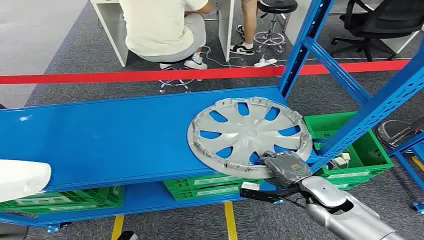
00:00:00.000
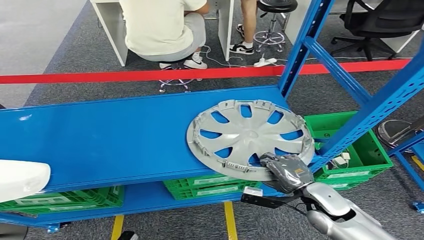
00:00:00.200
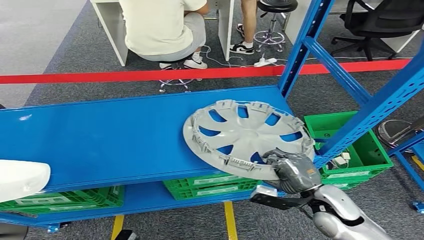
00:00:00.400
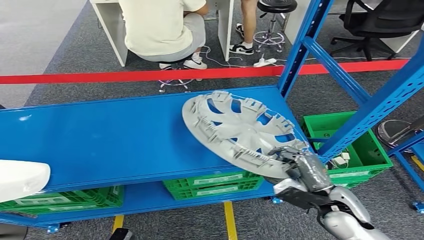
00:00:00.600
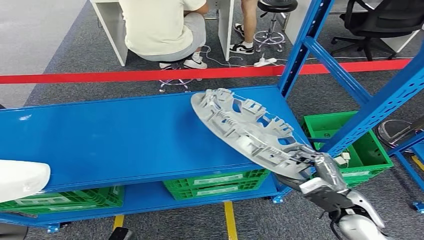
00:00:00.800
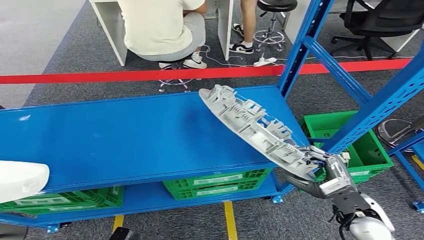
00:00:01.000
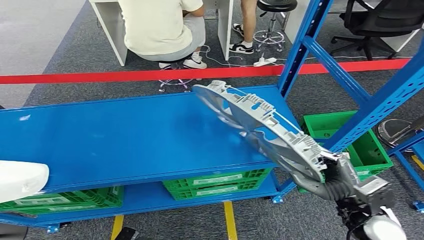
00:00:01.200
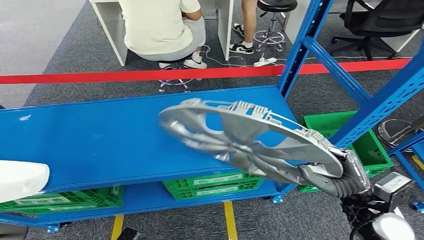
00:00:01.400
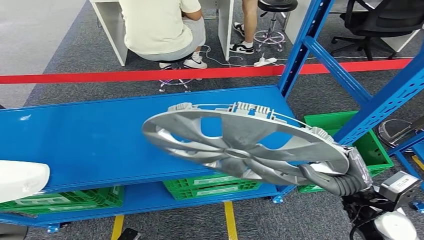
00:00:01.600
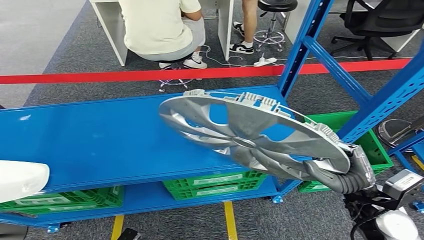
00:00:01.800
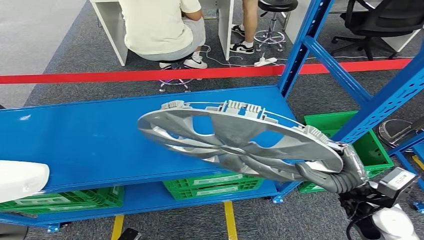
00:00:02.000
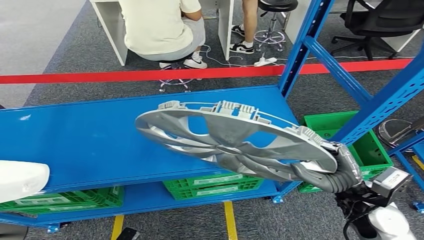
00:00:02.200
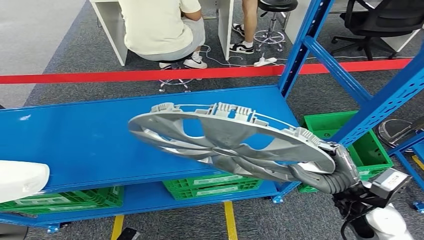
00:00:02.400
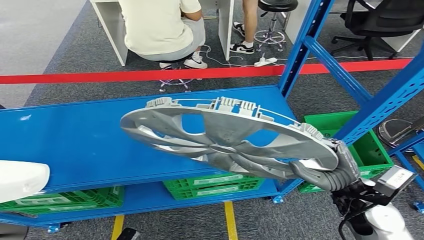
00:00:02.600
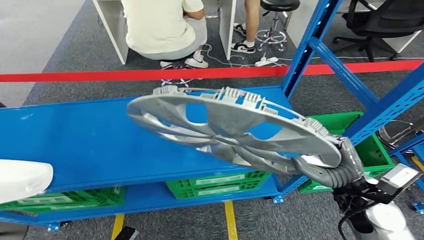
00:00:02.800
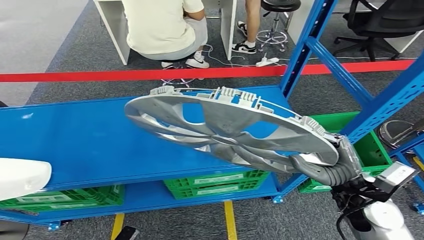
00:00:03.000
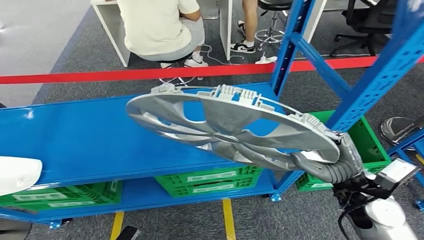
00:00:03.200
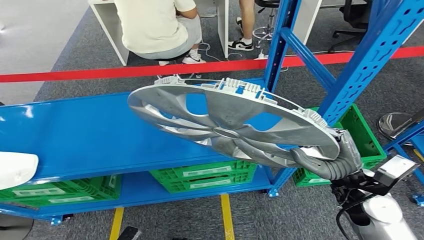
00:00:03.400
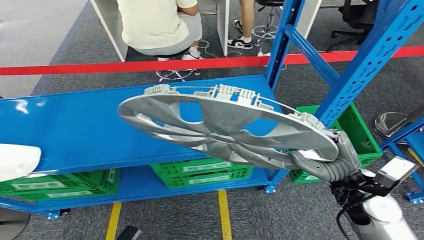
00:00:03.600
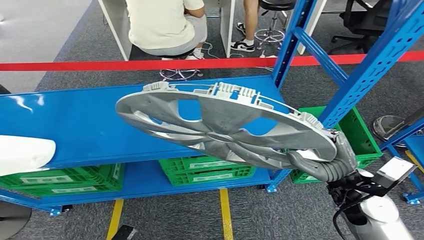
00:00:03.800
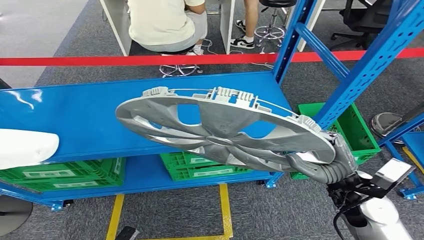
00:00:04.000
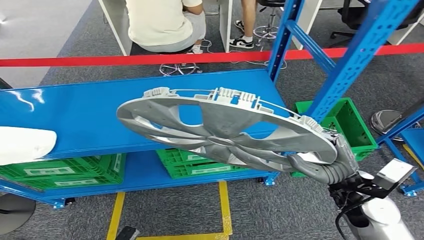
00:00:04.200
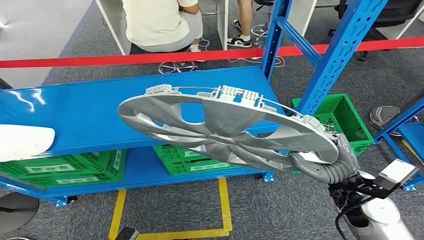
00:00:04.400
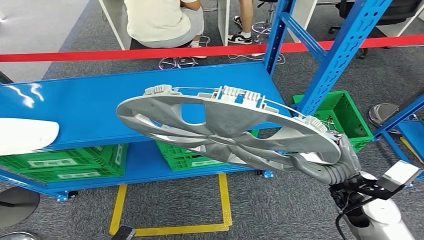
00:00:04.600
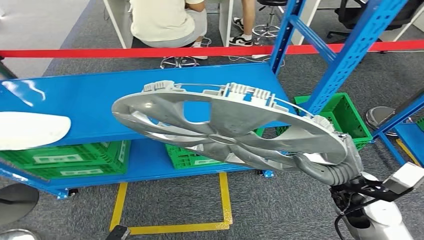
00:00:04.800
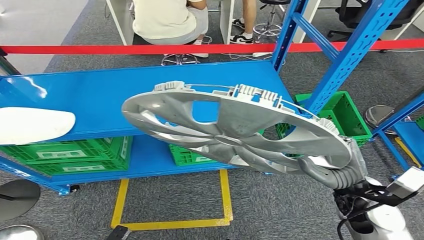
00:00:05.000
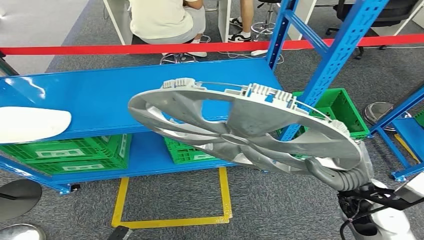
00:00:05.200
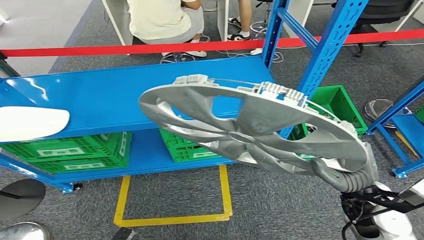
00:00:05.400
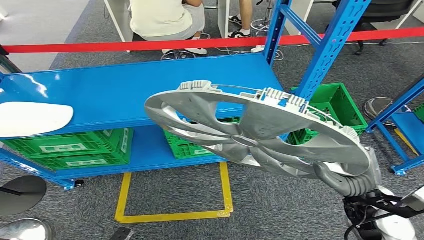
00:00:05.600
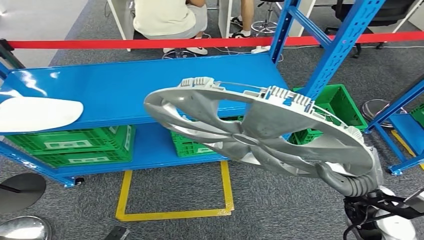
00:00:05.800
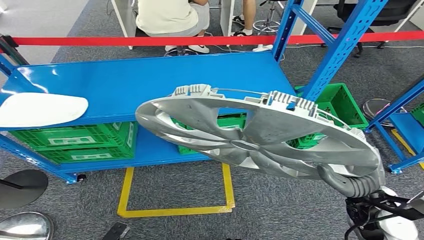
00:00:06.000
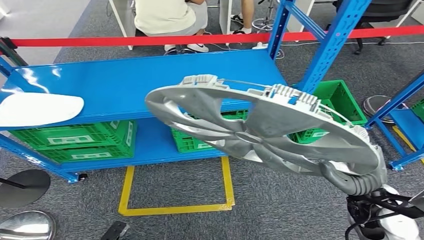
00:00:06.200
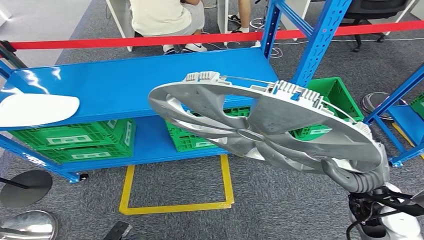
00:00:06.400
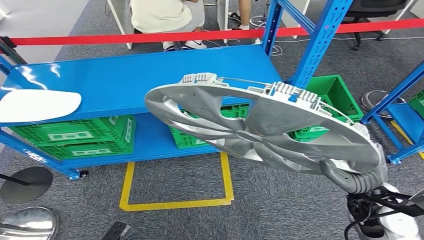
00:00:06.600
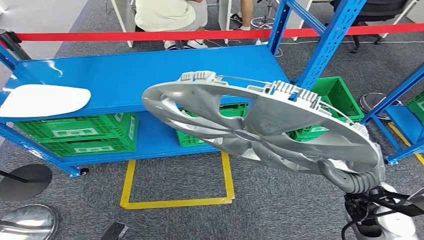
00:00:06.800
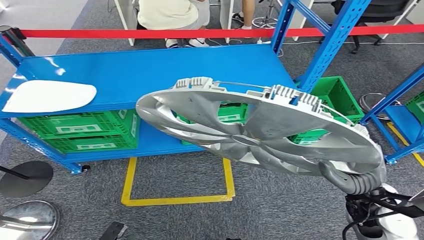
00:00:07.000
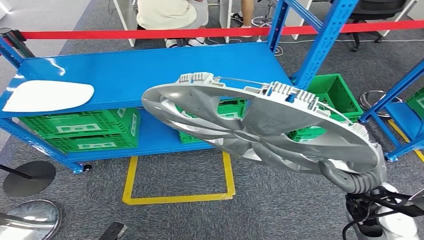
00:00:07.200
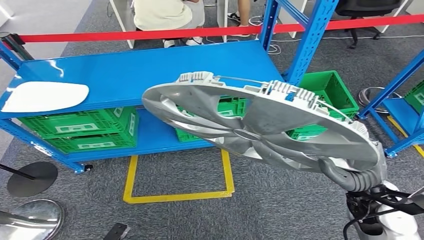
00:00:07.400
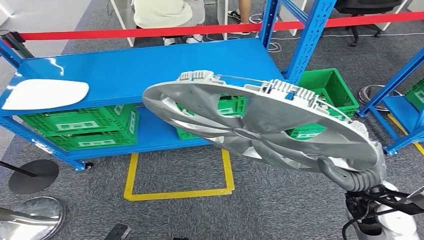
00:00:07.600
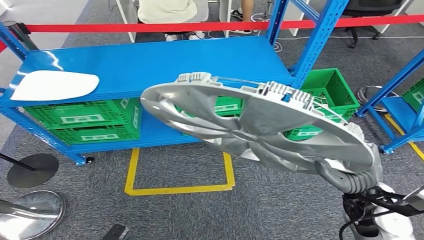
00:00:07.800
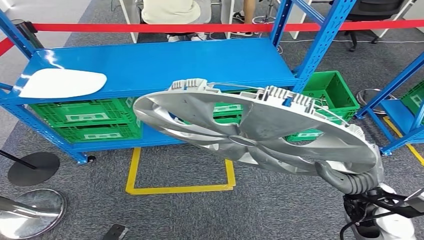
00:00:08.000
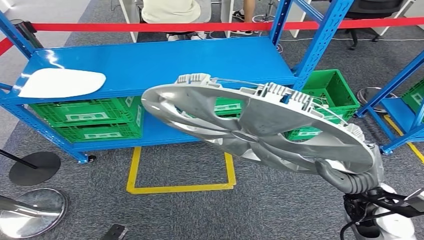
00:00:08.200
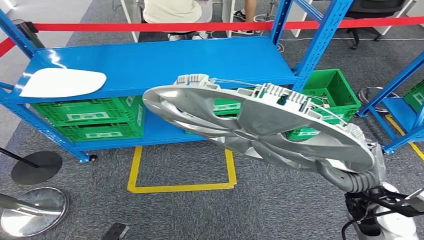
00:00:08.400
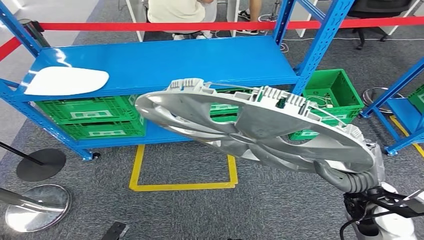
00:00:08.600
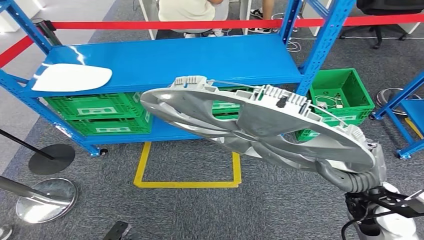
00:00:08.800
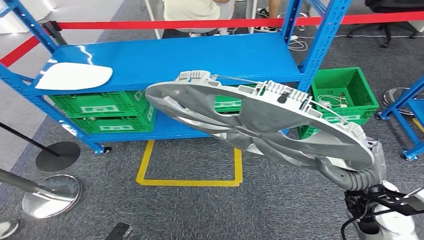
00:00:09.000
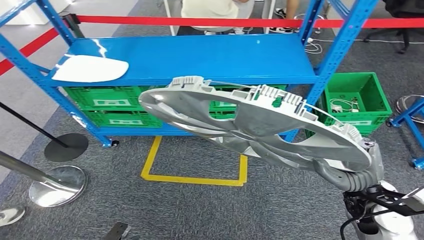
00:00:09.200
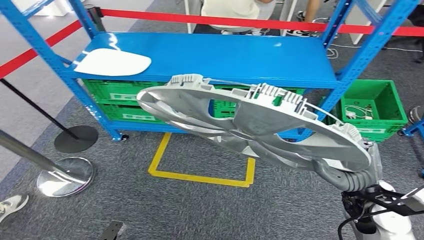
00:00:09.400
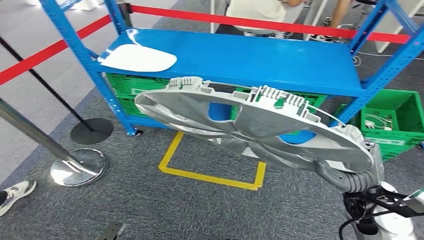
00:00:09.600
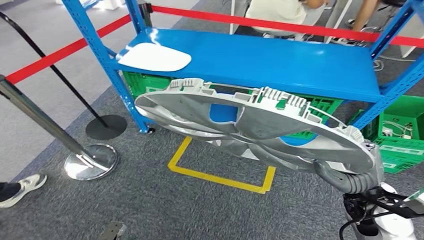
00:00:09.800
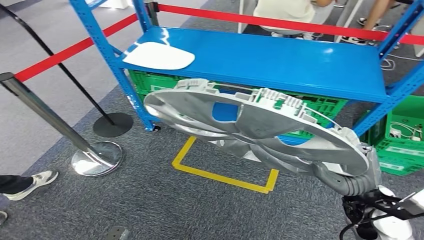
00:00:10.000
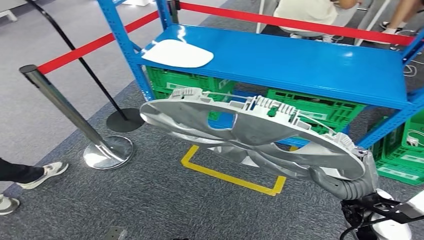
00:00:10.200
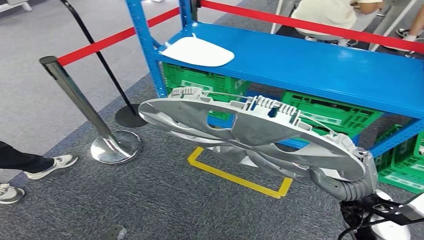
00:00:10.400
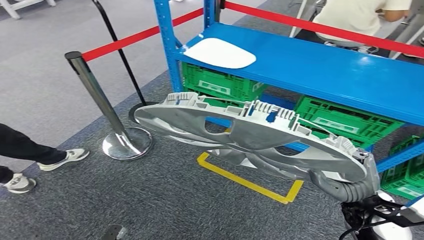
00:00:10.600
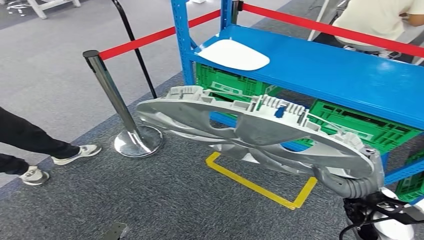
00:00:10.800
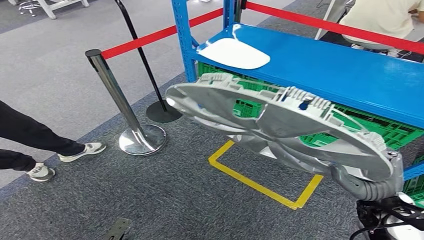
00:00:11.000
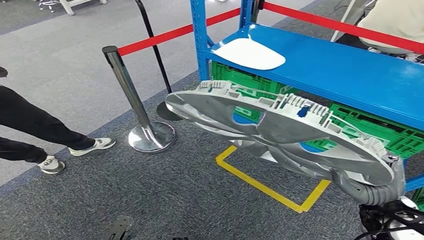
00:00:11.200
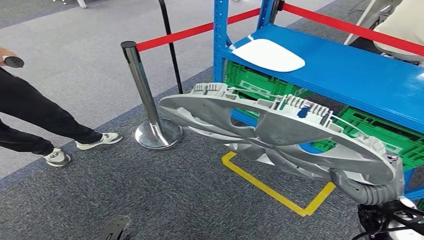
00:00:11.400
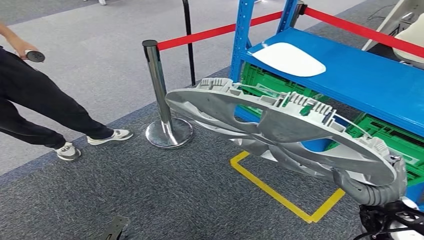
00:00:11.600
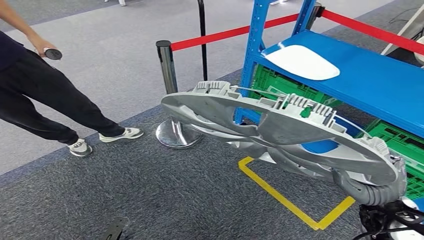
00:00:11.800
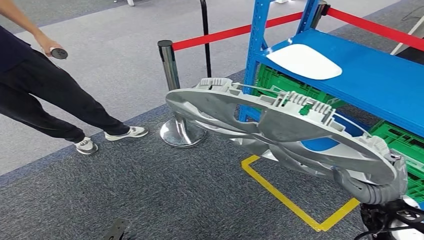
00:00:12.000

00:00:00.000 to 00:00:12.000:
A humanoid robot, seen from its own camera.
Step, 00:00:00.000 to 00:00:03.000: Pick up the small parts from the shelf.

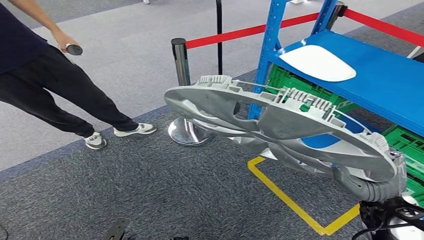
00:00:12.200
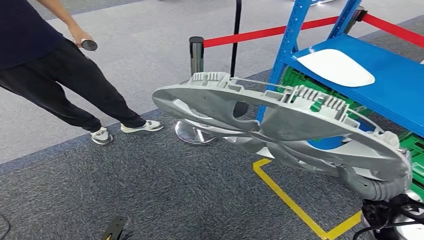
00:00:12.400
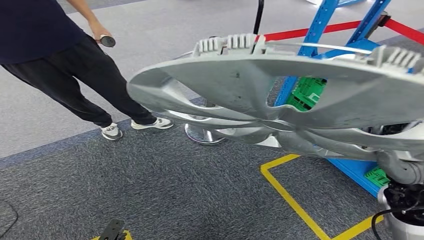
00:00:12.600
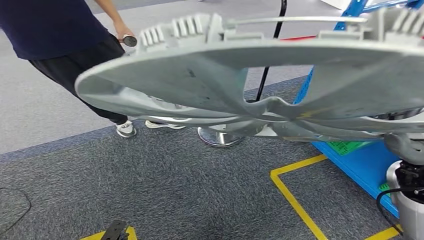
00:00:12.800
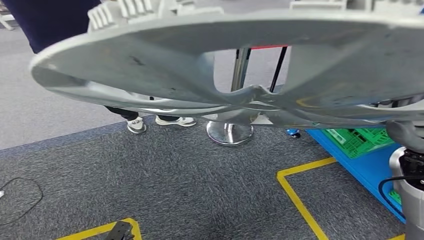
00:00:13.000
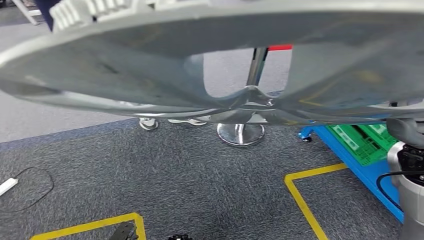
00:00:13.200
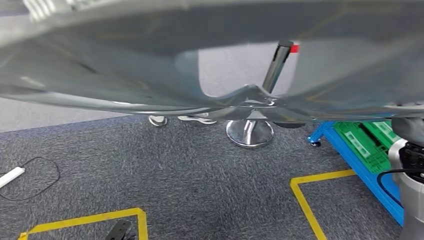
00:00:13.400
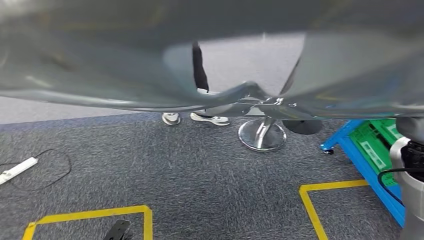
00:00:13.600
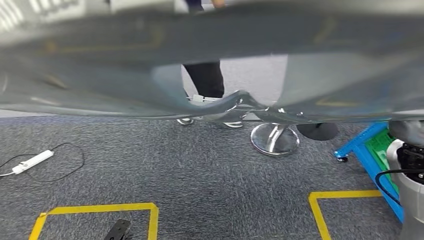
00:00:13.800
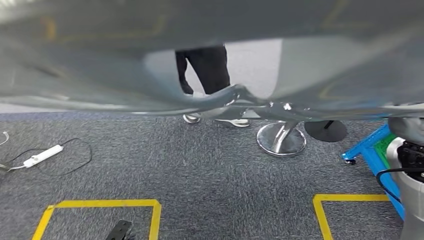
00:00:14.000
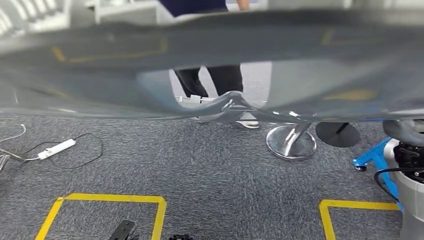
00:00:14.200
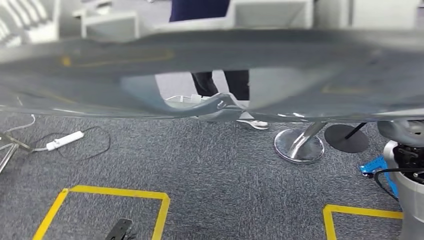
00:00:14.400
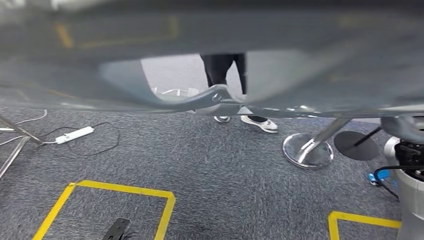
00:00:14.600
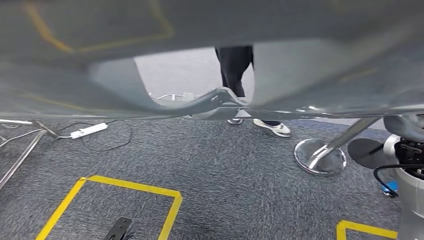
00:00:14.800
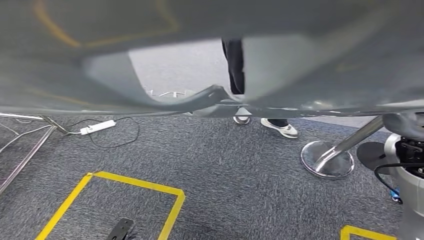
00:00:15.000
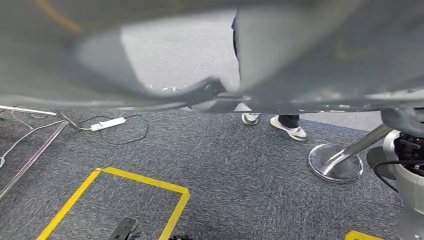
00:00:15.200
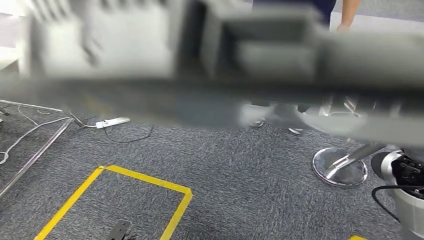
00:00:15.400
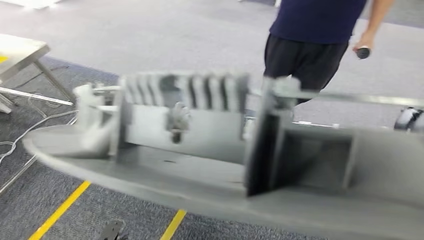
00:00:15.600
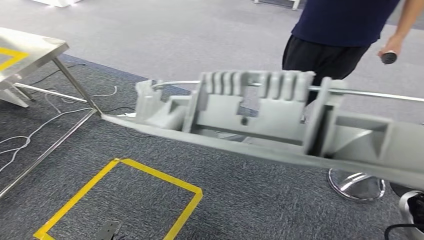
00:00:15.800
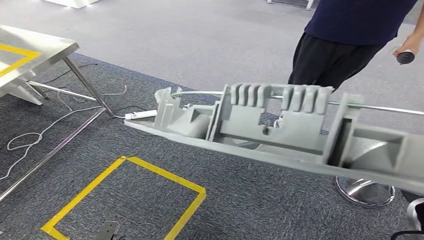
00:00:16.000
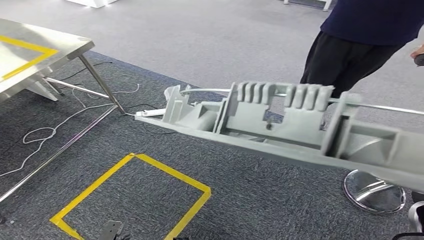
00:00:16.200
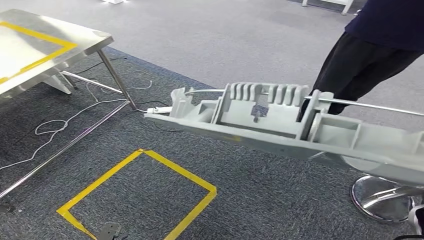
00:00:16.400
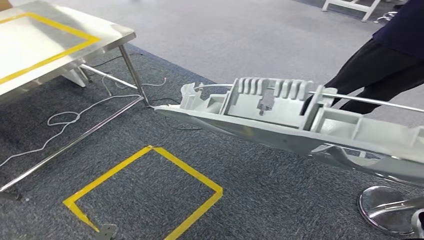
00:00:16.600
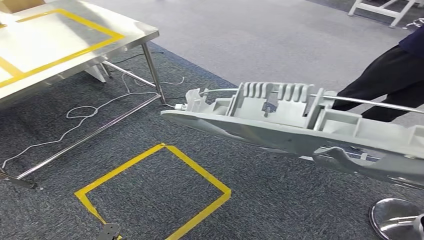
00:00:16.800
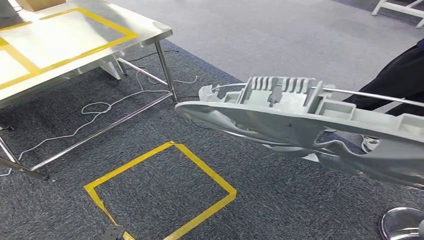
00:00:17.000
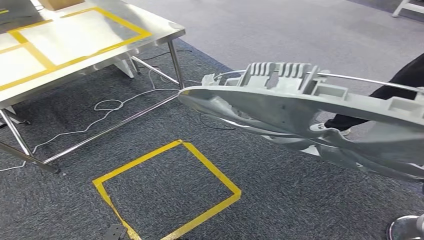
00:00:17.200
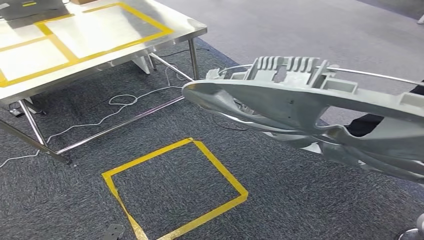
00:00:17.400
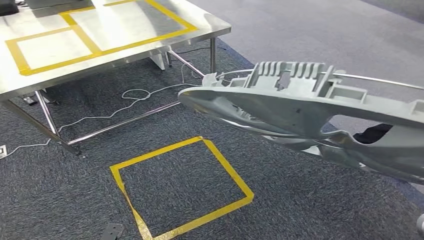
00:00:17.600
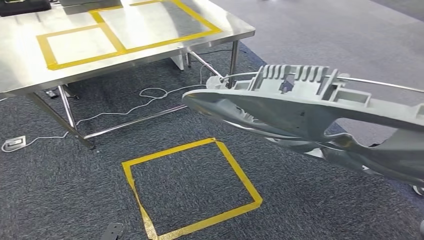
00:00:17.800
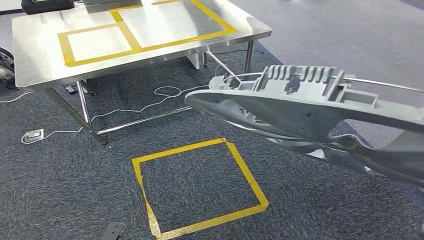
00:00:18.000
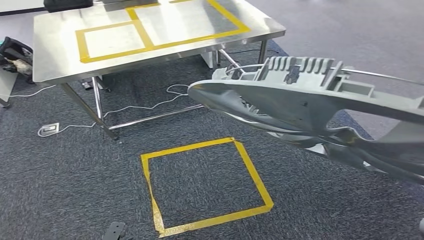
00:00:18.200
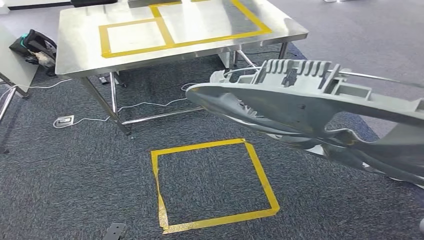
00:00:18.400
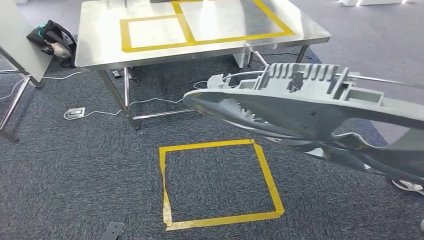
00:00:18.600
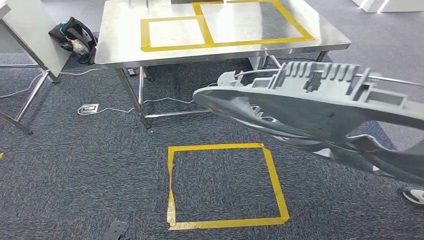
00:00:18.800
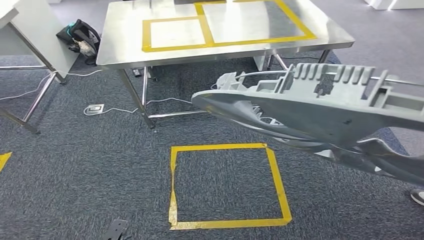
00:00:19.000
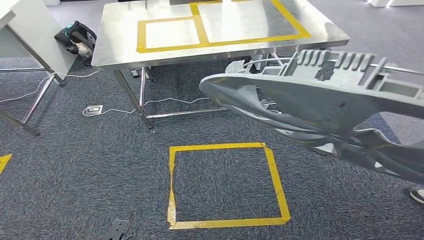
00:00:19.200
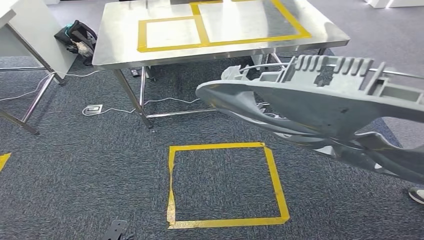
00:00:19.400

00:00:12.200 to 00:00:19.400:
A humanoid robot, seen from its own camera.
Step, 00:00:12.200 to 00:00:18.400: Move the small parts to the workbench.
